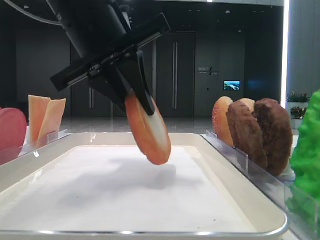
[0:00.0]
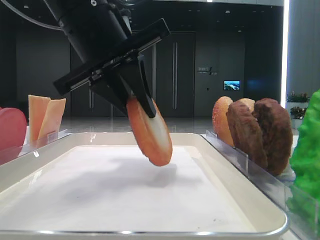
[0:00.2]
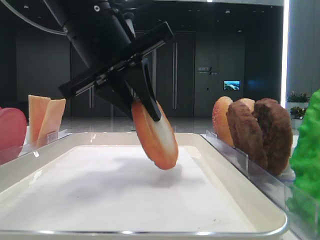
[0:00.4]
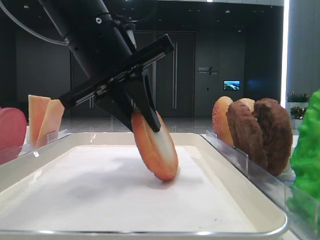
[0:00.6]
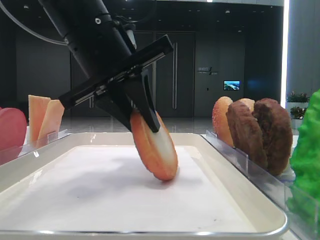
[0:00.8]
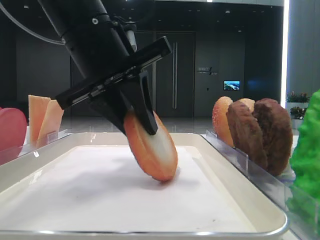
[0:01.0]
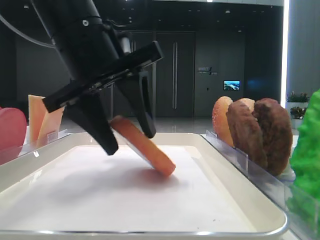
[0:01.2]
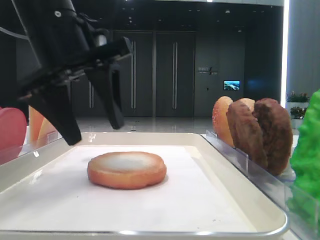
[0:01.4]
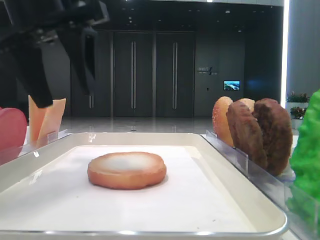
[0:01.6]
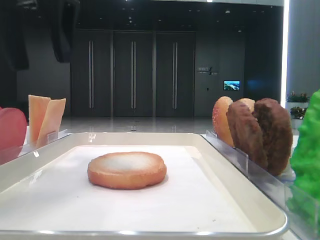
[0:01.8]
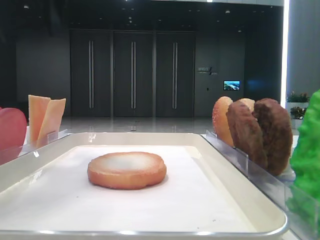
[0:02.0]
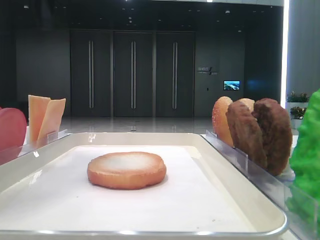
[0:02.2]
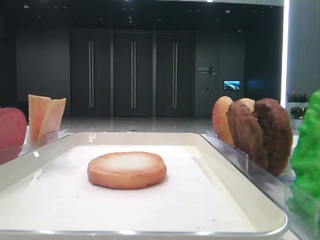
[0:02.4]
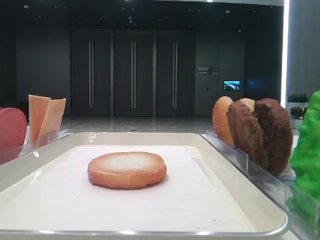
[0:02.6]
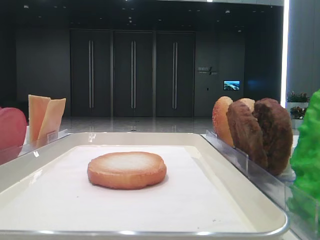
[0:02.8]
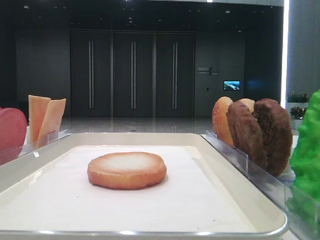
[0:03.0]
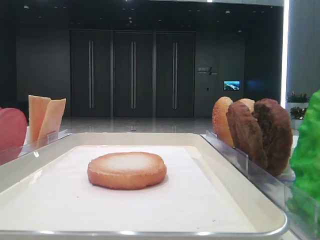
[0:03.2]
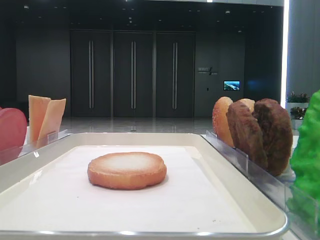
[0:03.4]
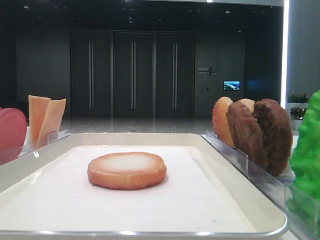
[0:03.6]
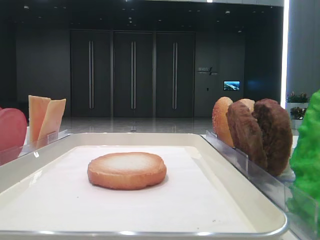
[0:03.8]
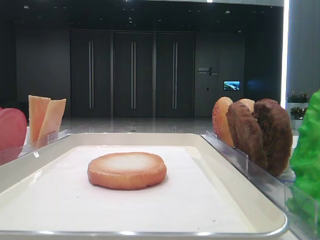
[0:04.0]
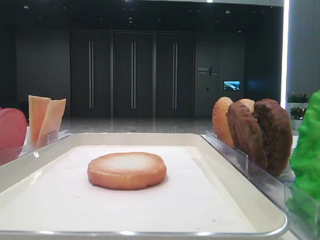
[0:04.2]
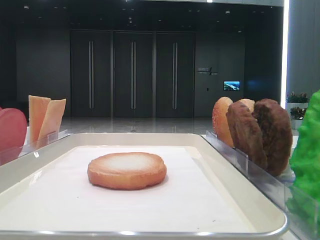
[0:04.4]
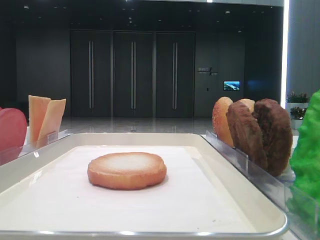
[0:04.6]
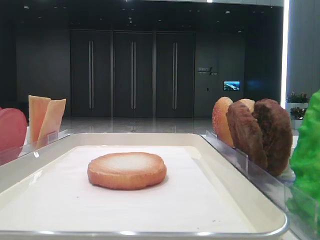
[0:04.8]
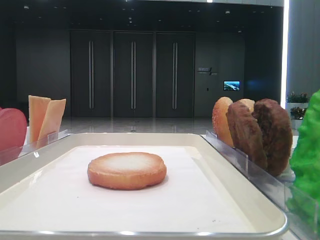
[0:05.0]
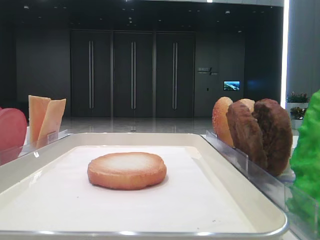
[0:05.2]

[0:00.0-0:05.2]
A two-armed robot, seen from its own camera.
0:00.0 to 0:01.8: The left gripper shifts approximately 10 cm upward and to the left, and opens.
0:01.8 to 0:03.4: The left gripper travels backward and to the left by about 25 cm.

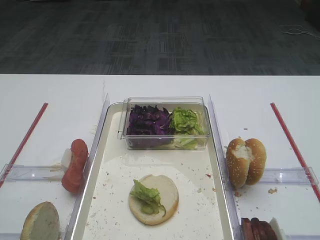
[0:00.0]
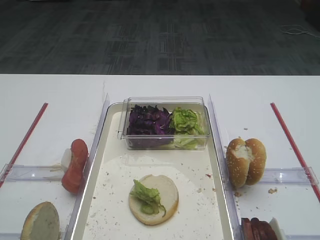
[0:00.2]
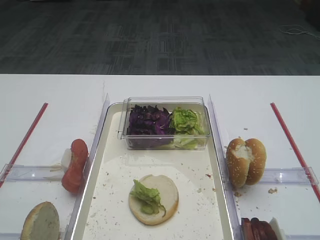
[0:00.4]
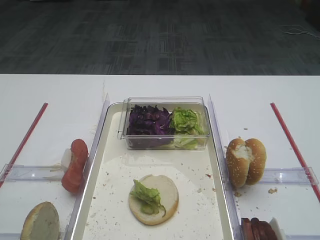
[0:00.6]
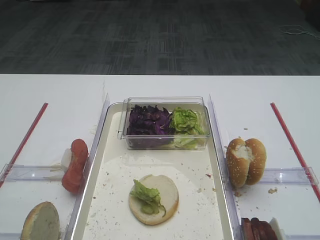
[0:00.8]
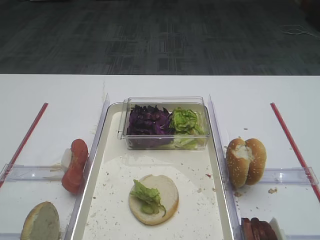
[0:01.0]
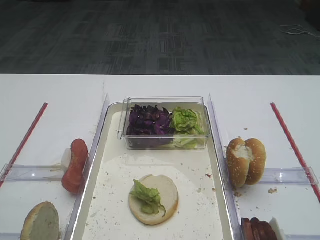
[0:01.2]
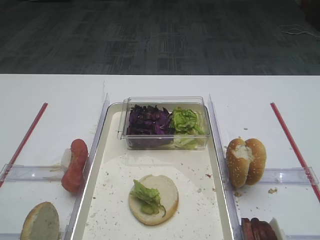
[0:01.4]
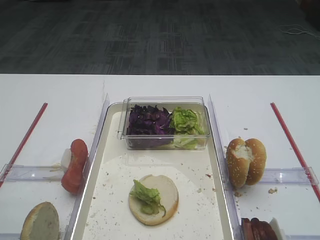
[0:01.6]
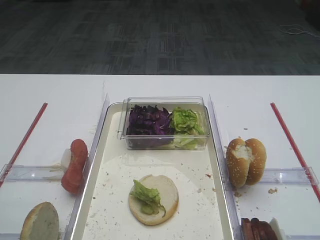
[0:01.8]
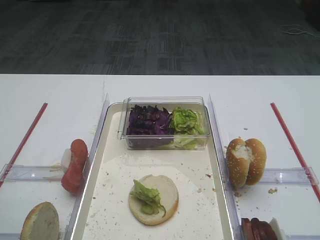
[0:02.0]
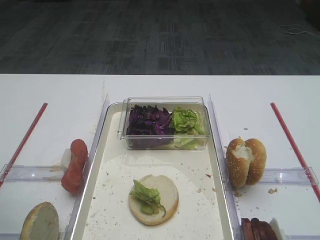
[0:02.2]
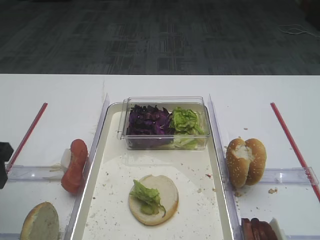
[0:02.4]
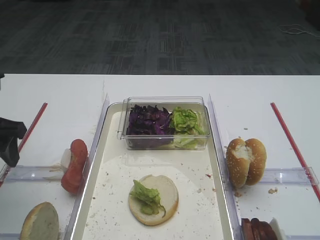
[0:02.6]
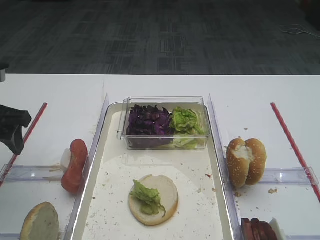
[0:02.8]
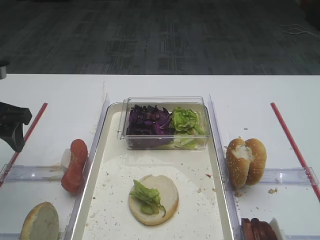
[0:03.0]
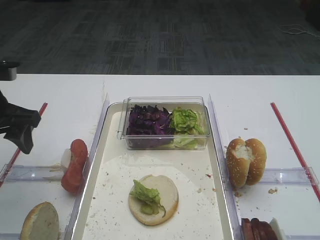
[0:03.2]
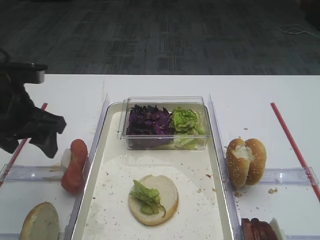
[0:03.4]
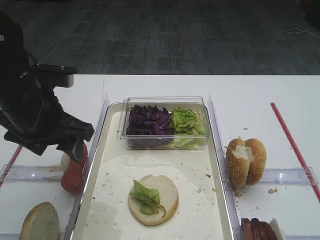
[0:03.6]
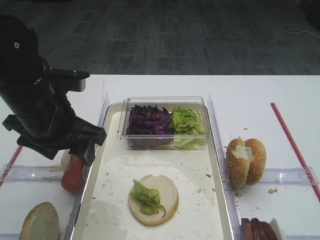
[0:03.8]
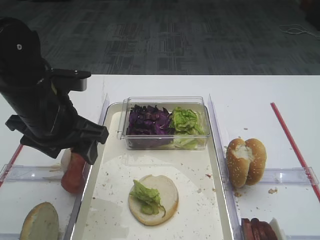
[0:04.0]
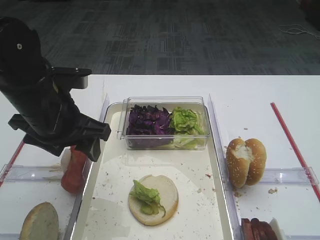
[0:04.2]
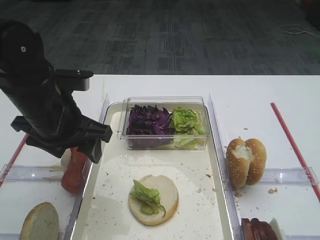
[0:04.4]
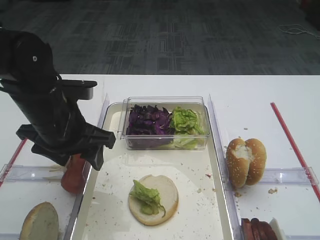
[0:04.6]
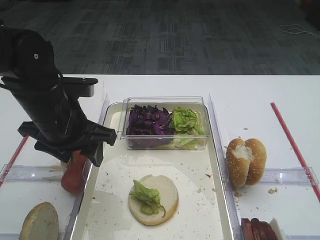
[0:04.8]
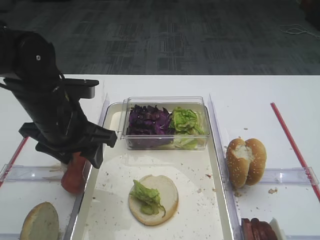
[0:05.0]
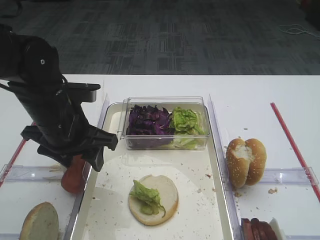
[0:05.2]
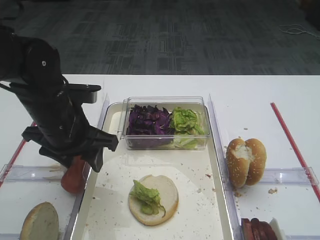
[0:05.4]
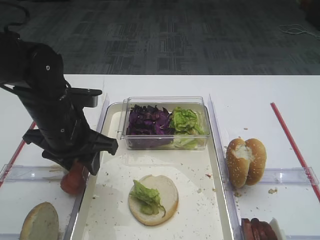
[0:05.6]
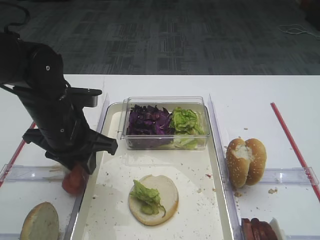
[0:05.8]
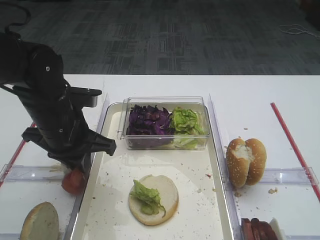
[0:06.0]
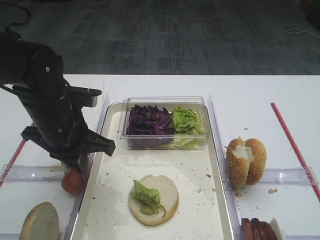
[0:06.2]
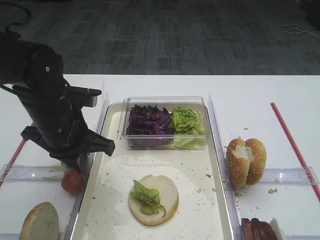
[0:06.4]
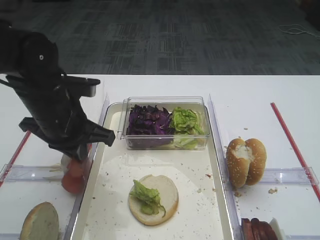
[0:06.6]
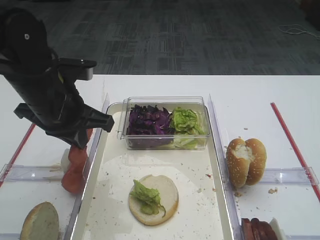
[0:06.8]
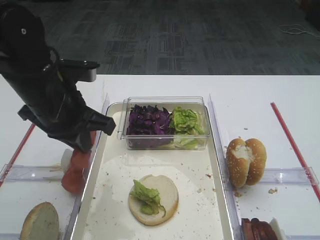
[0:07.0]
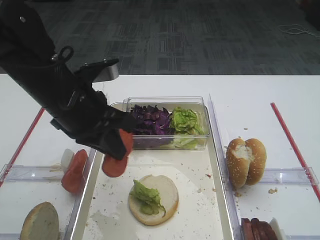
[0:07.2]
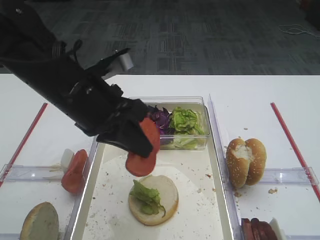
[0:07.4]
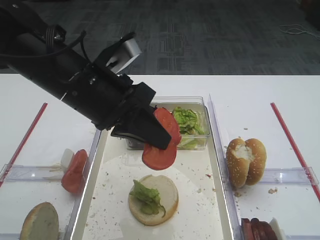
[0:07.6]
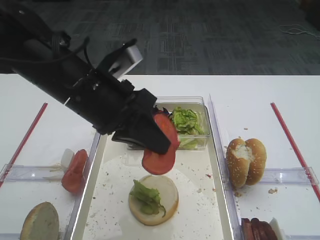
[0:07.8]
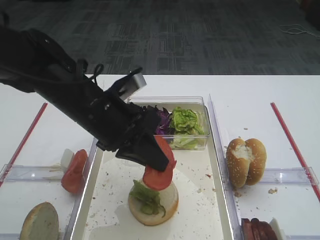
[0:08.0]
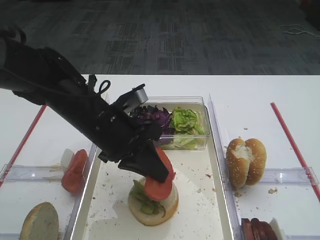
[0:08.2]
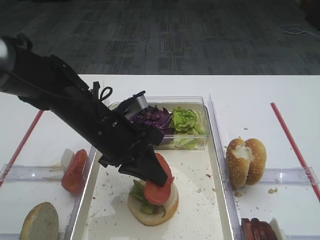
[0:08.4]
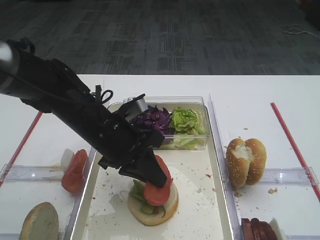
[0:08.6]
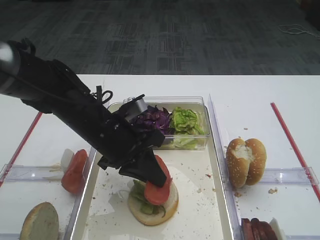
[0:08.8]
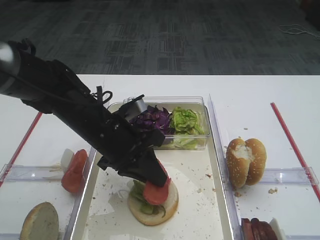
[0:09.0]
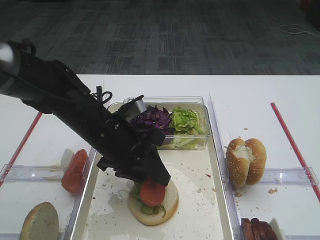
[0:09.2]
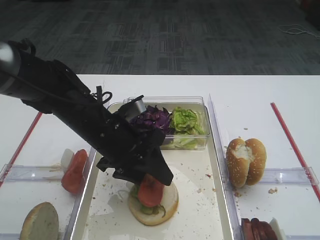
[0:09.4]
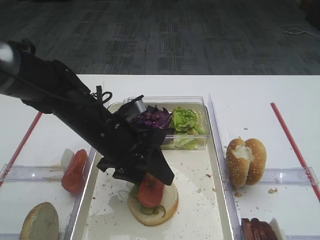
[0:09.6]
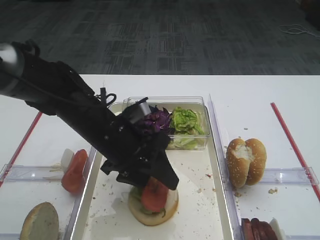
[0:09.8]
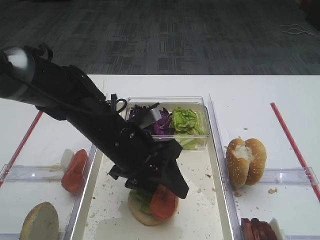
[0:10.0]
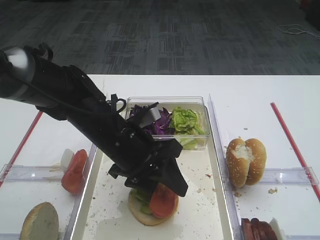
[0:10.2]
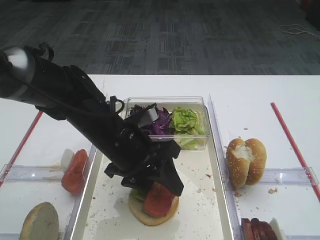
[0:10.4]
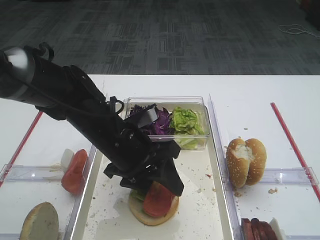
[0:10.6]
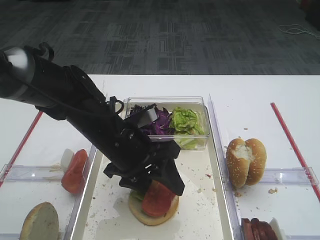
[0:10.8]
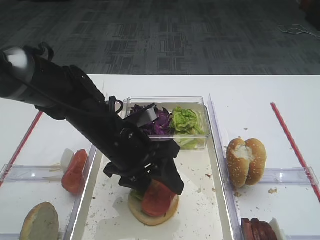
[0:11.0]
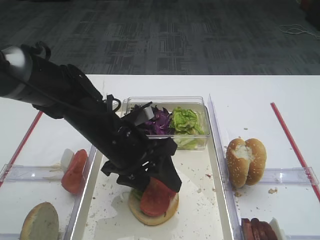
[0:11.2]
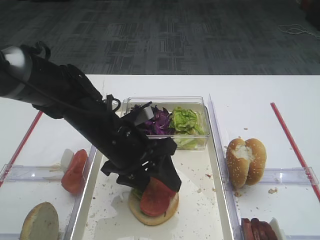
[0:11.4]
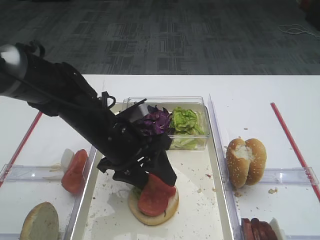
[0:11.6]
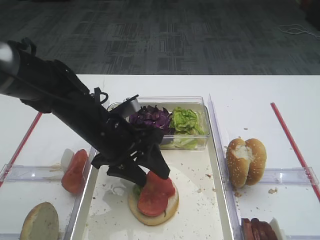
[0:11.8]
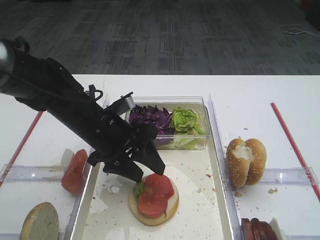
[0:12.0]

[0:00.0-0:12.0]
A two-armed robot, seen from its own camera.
Step, 0:00.0 to 0:06.8: Pick up the tomato slice with the left gripper.
Step, 0:07.0 to 0:11.6: Place the tomato slice on the lettuce leaf with the left gripper.
0:01.6 to 0:03.0: The left gripper goes about 20 cm forward.
0:03.0 to 0:04.4: The left gripper shifts about 10 cm to the right.
0:04.4 to 0:06.0: The left gripper closes its fingers.
0:06.0 to 0:07.6: The left gripper is displaced upward and to the right by about 10 cm.
0:07.6 to 0:09.0: The left gripper moves downward, some 10 cm.
0:09.0 to 0:10.4: The left gripper opens up.
0:10.4 to 0:12.0: The grippers move only a little.

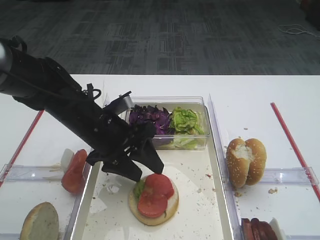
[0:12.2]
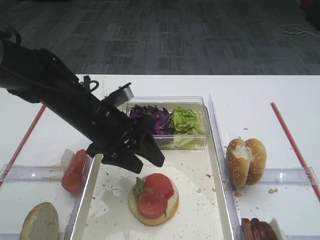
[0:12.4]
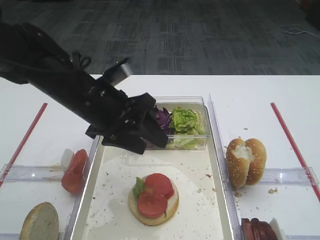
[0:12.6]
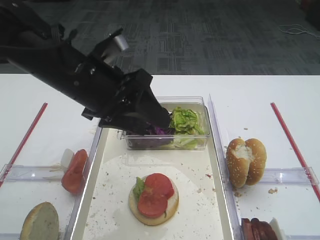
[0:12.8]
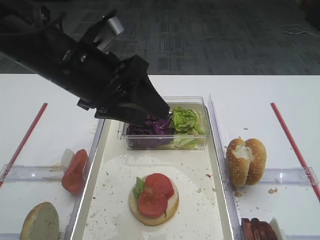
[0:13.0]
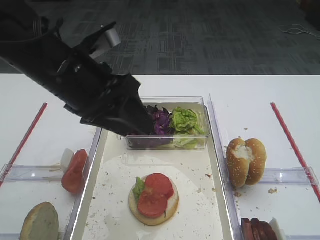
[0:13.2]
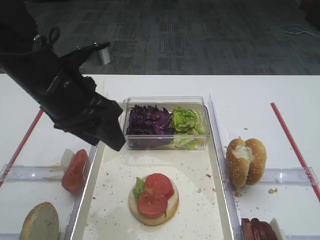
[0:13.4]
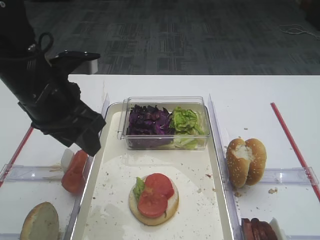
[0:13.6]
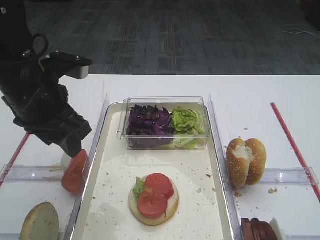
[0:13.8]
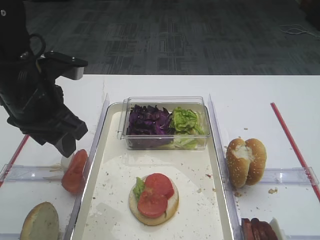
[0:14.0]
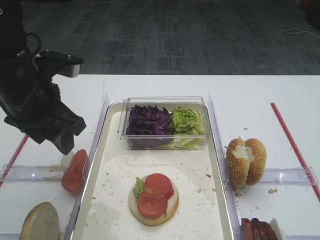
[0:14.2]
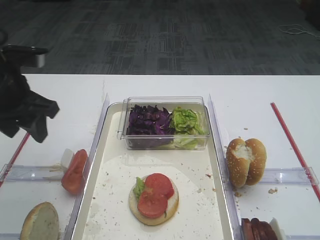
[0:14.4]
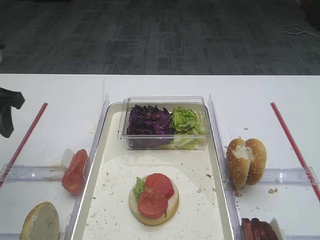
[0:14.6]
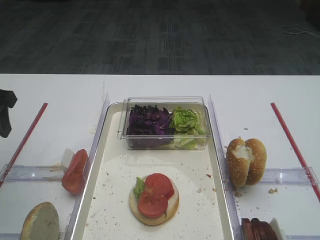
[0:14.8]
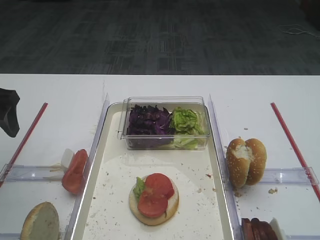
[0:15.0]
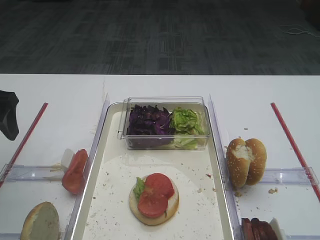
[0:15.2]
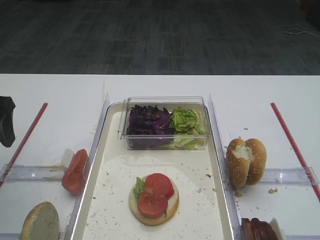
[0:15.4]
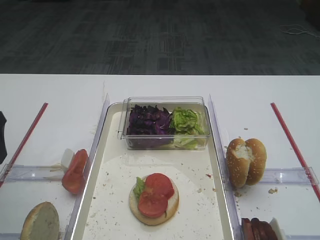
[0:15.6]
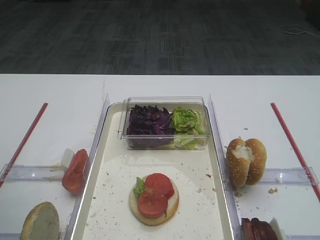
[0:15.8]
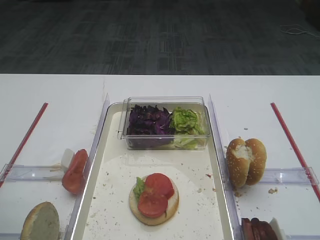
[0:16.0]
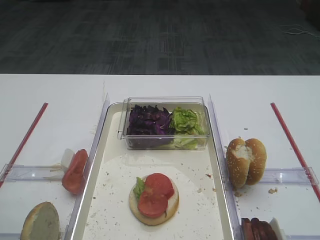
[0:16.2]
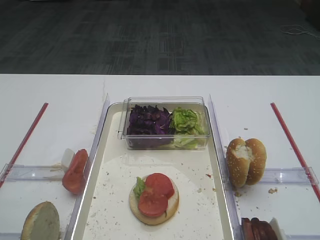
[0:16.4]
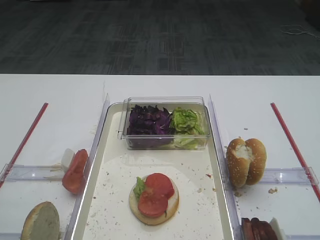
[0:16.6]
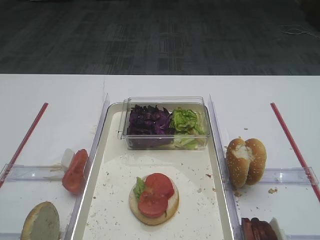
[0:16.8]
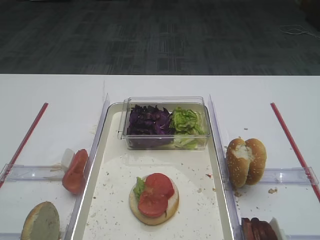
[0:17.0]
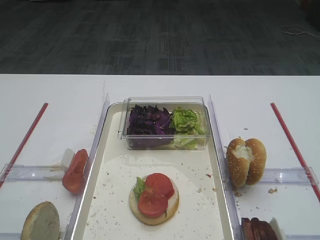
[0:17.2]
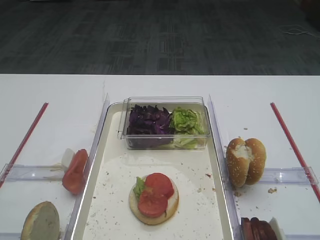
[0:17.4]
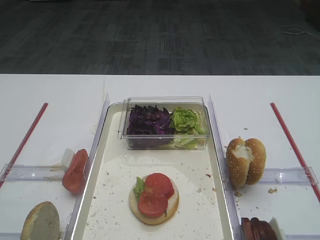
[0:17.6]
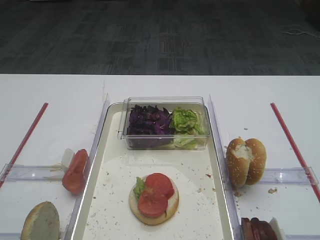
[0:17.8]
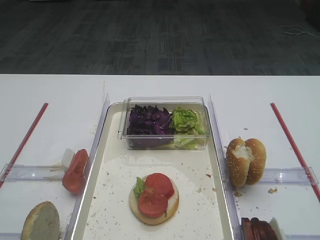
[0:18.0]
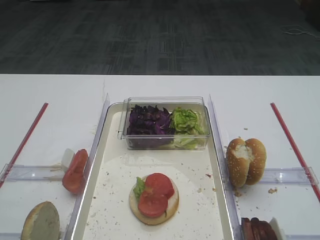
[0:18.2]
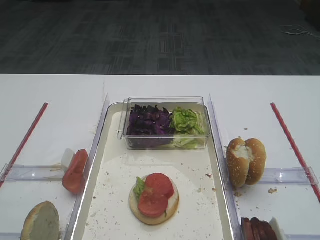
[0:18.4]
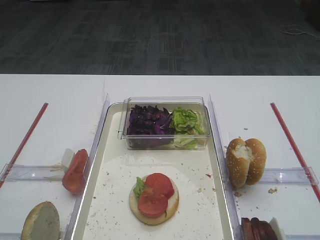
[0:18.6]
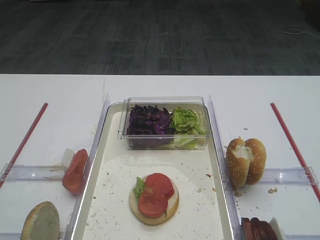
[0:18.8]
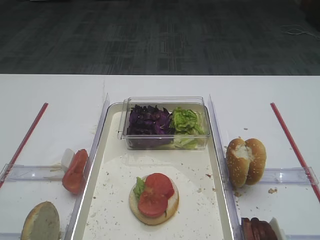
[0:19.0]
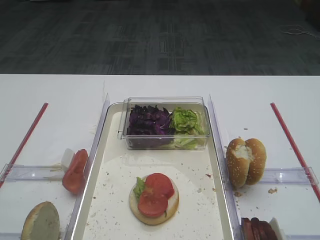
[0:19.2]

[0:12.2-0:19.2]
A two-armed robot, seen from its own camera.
0:12.2 to 0:13.6: The left gripper is displaced upward and to the left by approximately 10 cm.
0:13.6 to 0:15.0: The left gripper heads to the left, covering roughly 15 cm.
0:15.0 to 0:16.4: The left gripper heads backward, covering approximately 20 cm.
0:17.8 to 0:19.2: Neither gripper changes place.
